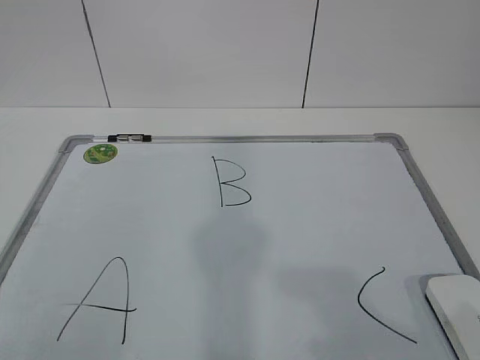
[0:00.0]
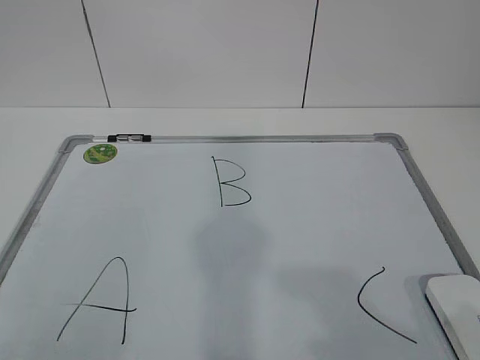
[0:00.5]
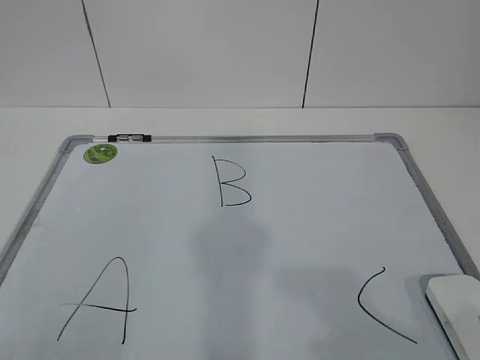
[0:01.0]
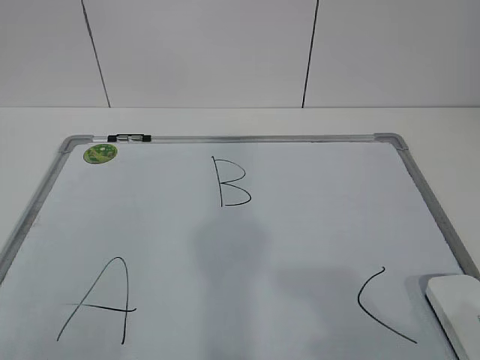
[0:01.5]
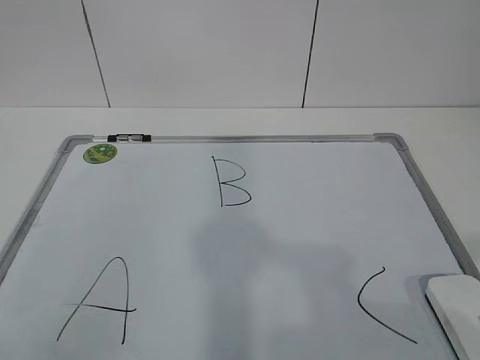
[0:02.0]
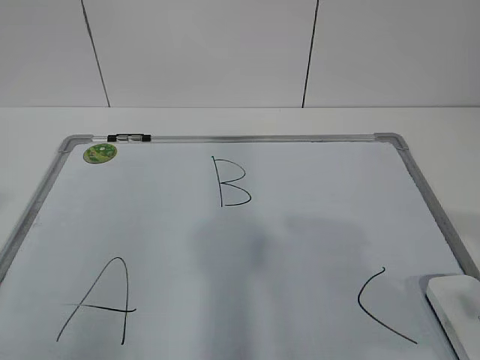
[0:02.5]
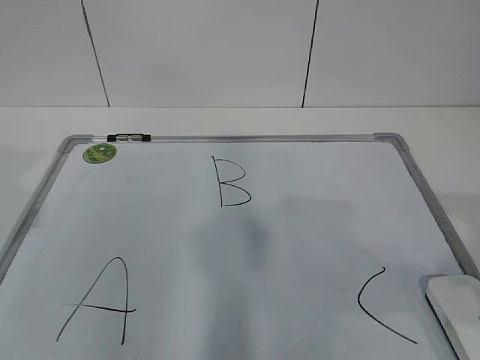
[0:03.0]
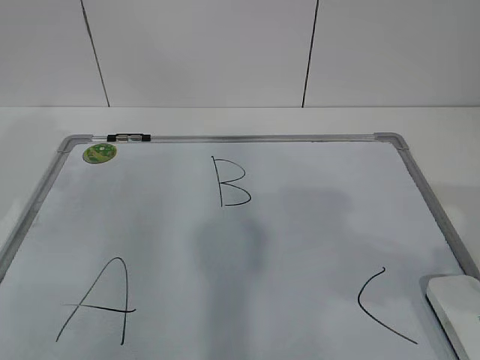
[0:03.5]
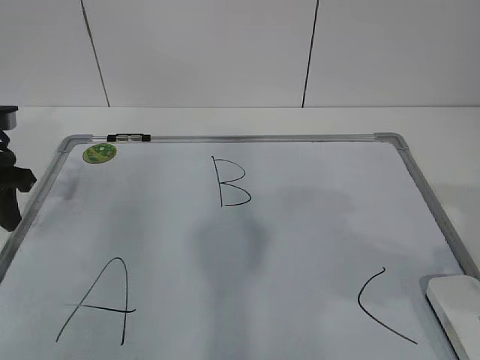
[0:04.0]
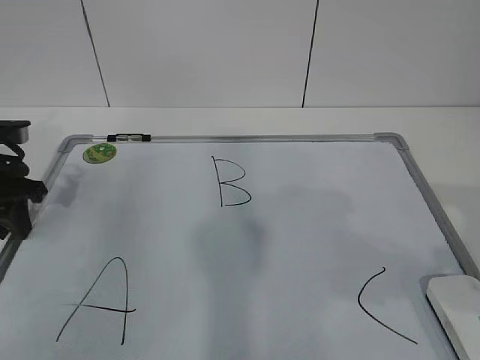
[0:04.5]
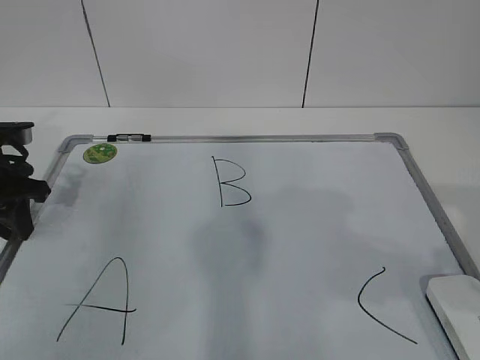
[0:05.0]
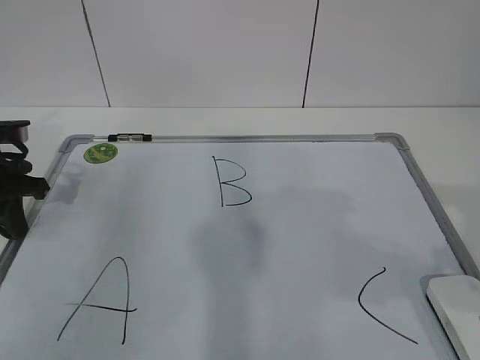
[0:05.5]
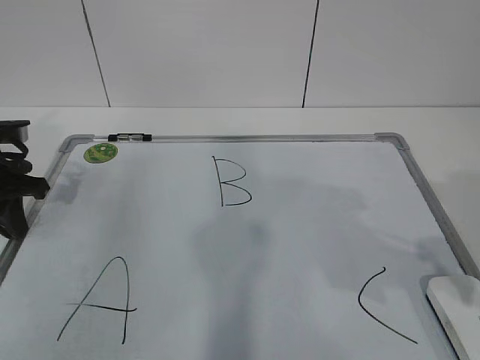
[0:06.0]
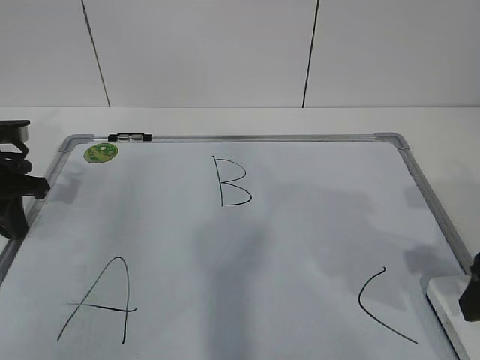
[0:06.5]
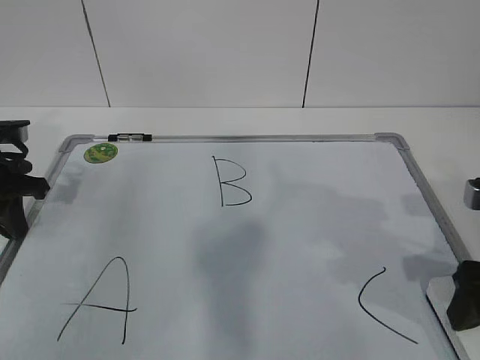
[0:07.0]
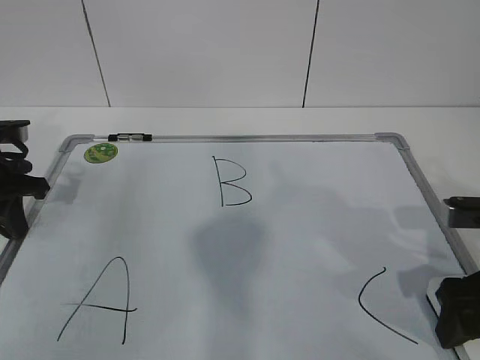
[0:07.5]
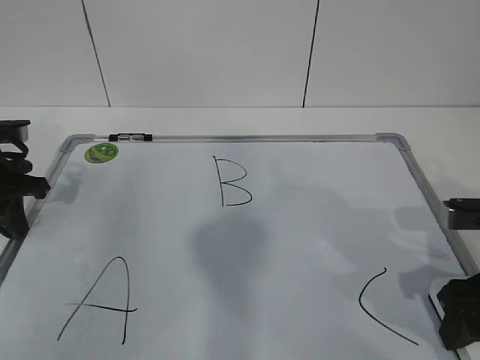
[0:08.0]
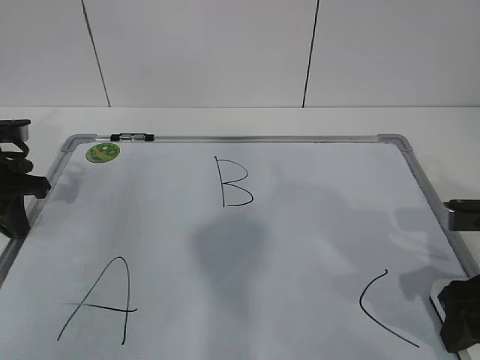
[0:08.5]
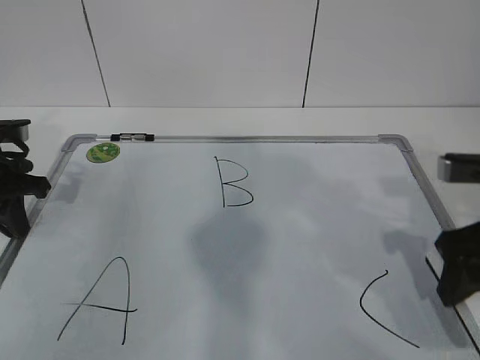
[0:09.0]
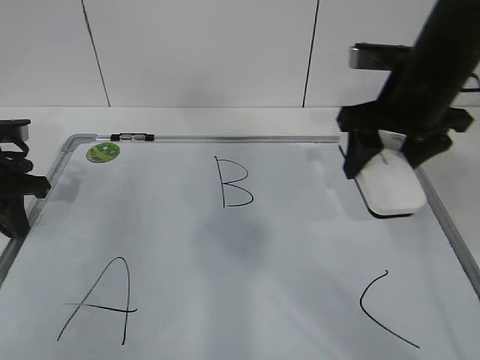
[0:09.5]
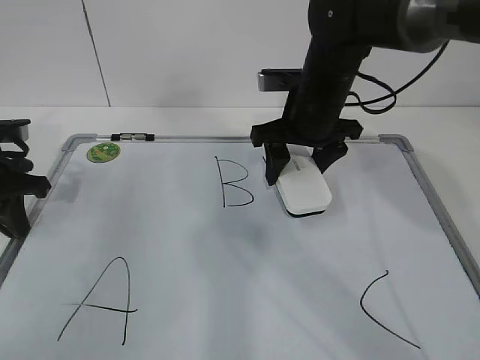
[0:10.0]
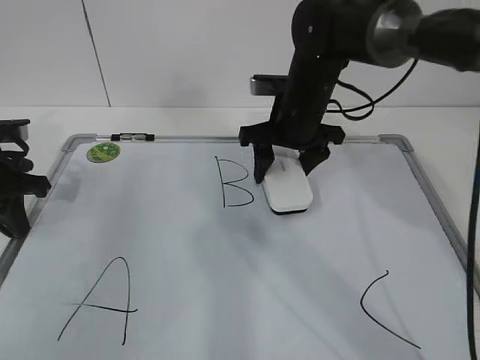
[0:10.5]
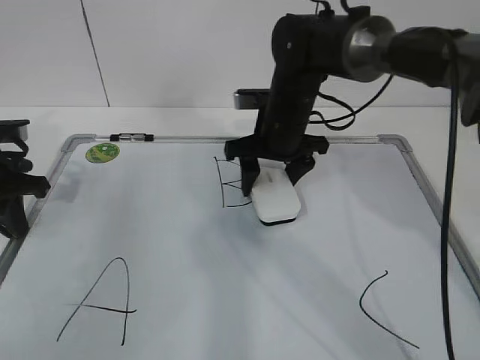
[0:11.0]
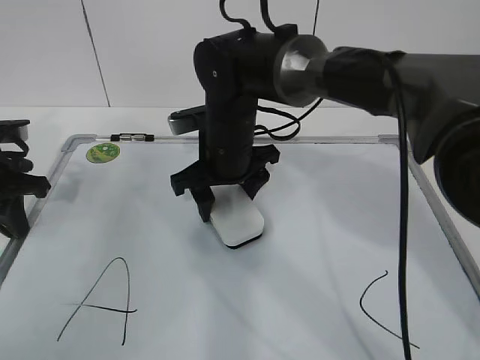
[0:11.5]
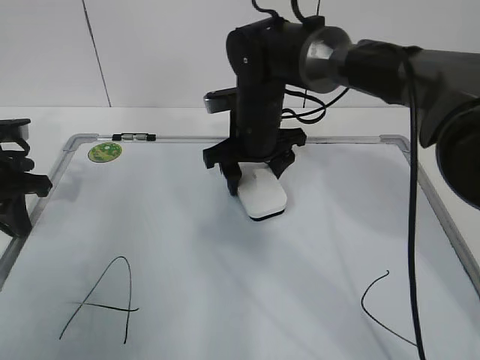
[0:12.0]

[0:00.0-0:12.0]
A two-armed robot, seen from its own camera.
Task of the whole recording: pick up the eraser on the blackboard and erase the letter "B".
Step, 0:00.0 to 0:04.0: Hold the drawing board steady with your left hand.
Step, 0:04.5 to 0:07.0: Grab the eraser with your right hand.
0:02.0 to 0:04.0: The left gripper shifts roughly 30 cm forward.
0:04.0 to 0:06.0: The left gripper closes up.
0:06.0 to 0:08.0: The right gripper moves downward and forward, some 10 cm, and closes its fingers.
0:08.0 to 0:10.0: The right gripper goes roughly 25 cm forward and to the left.
0:10.0 to 0:12.0: The right gripper travels to the left by approximately 5 cm.

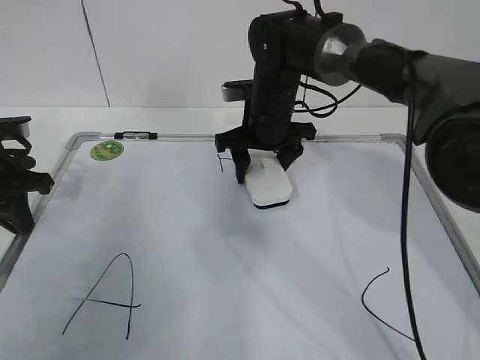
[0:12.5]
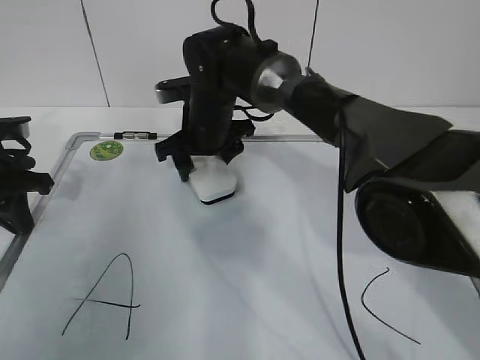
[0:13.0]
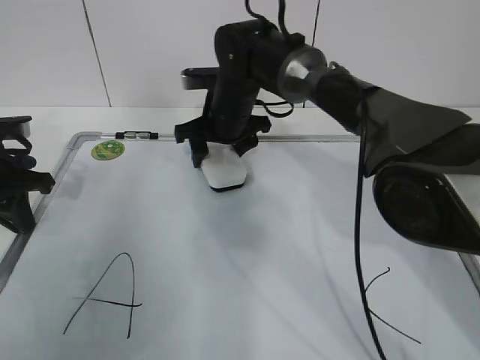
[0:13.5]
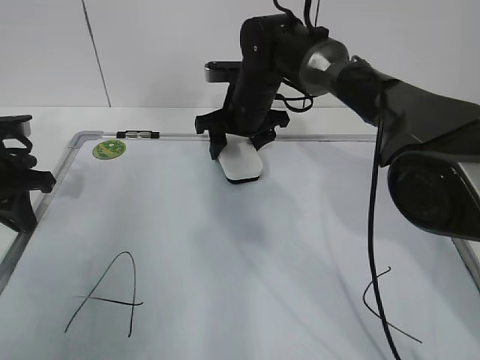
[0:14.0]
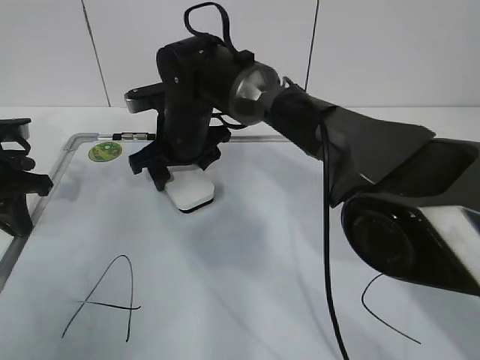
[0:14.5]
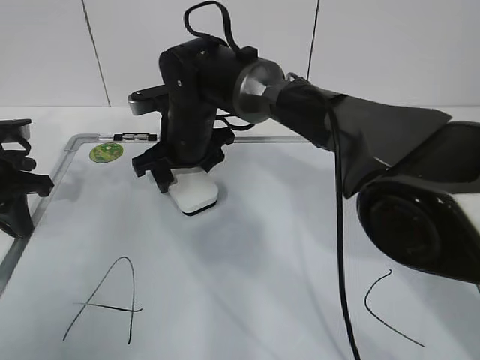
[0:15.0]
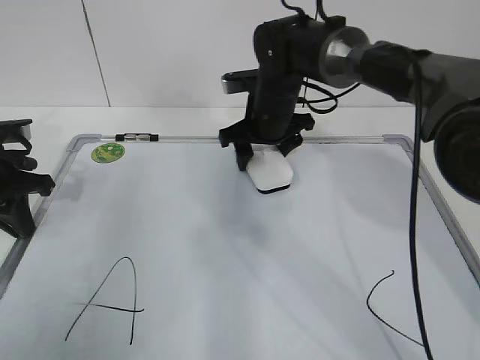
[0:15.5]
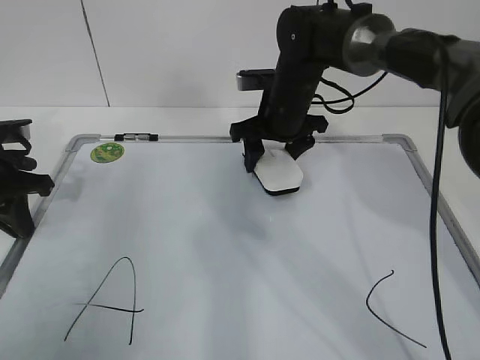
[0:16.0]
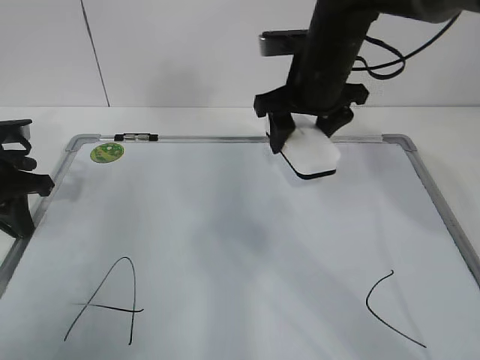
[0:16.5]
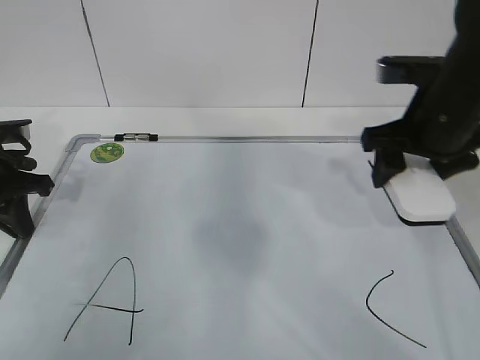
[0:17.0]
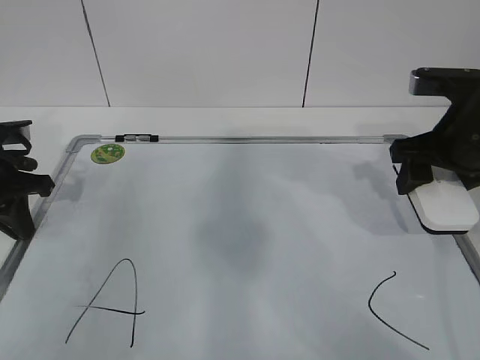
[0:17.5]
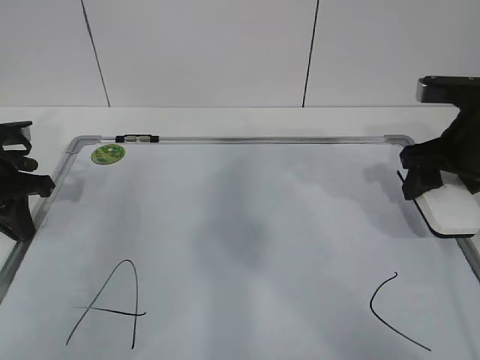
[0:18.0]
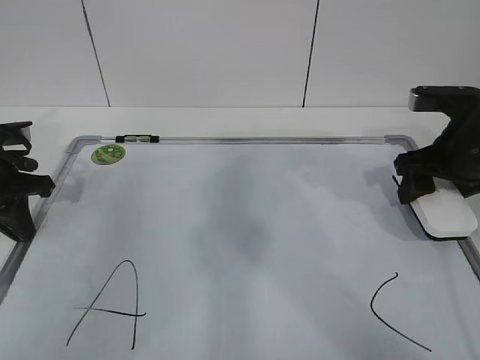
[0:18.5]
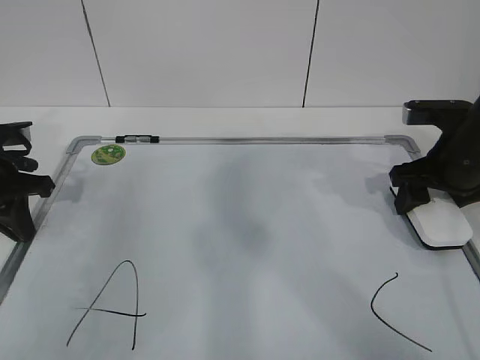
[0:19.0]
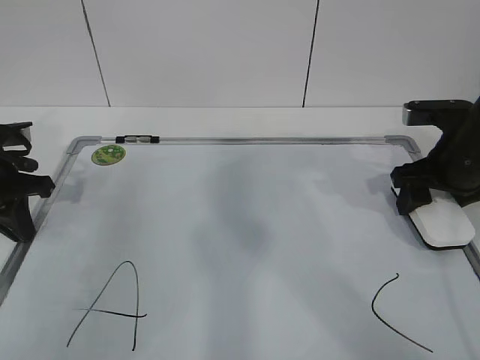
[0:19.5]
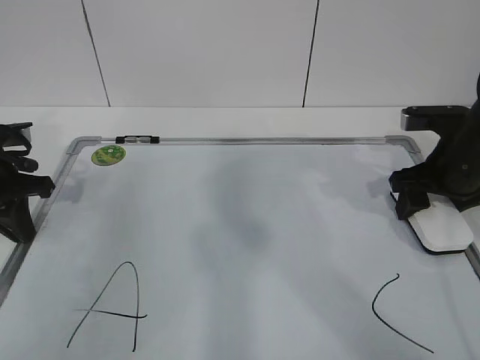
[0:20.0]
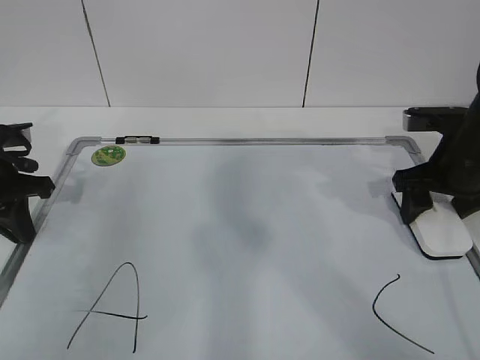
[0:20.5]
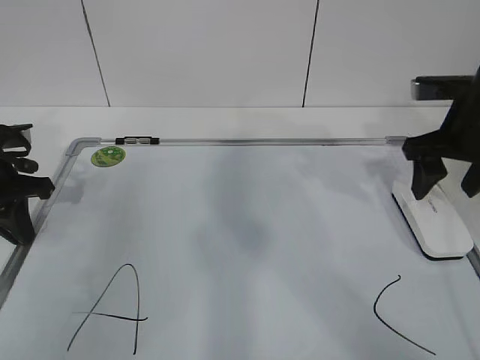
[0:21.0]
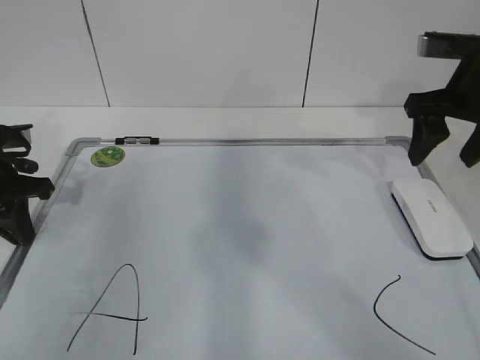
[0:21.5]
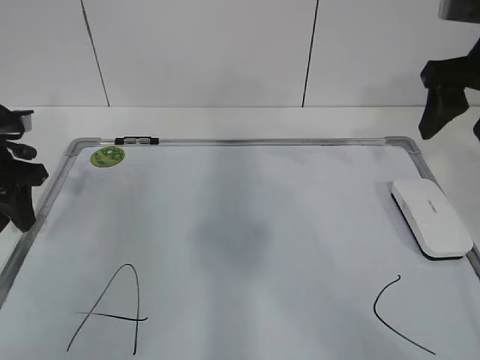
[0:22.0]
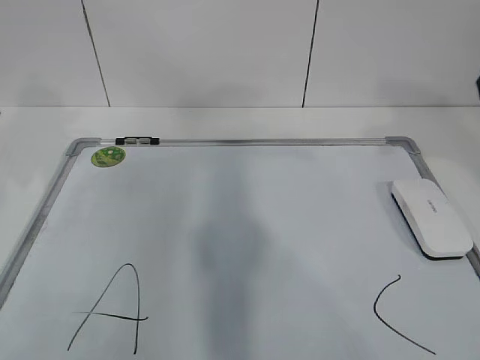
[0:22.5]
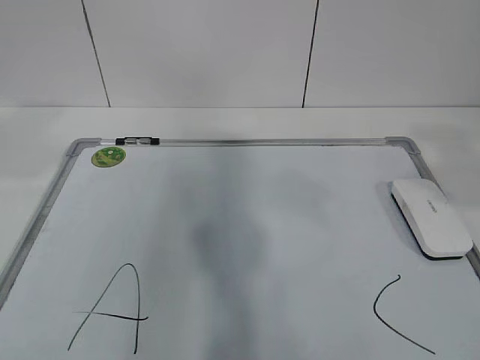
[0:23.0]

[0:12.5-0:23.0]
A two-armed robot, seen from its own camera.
Task of the whole recording: pick up the eraser on the blackboard and erase the letter "B".
Step, 0:13.5 to 0:16.5: Put down the eraser with your right hand.
0:12.5 to 0:14.5: The right gripper moves left and right over roughly 10 cm, changing direction 2 times.
0:14.5 to 0:16.5: The right gripper is displaced to the right and upward by about 20 cm.
0:16.5 to 0:19.0: The right gripper moves to the right, downward and backward, approximately 20 cm.
0:19.0 to 0:21.0: The right gripper opens.
0:21.0 to 0:23.0: The left gripper shifts about 30 cm upward and backward, and opens up. Meanwhile the right gripper goes about 30 cm backward and upward.

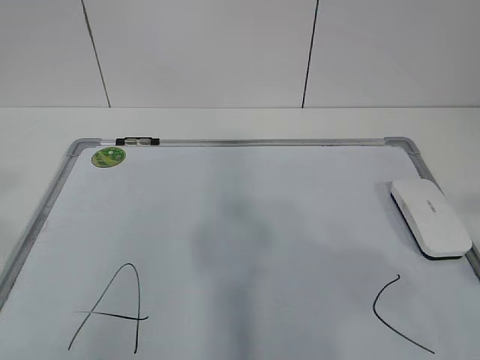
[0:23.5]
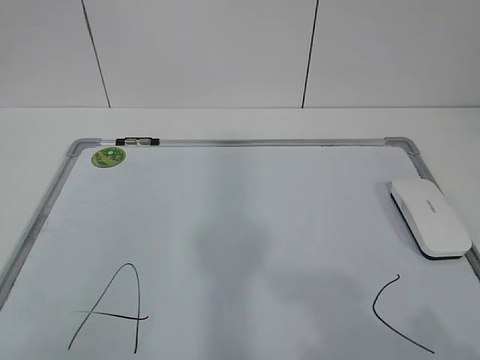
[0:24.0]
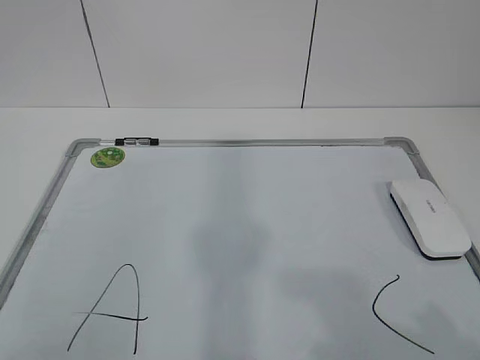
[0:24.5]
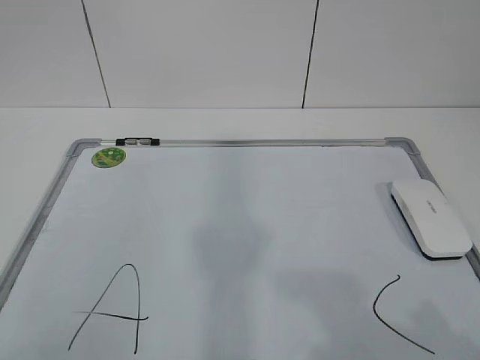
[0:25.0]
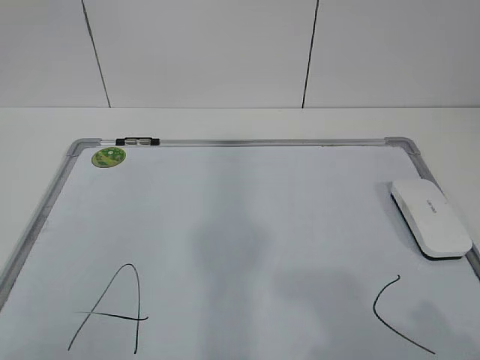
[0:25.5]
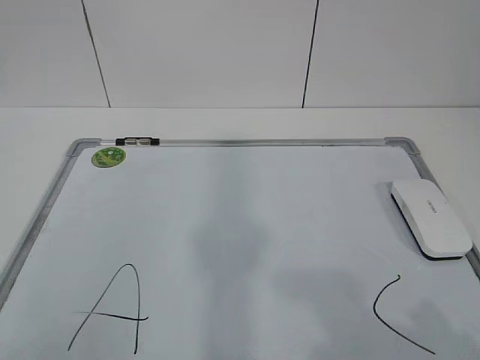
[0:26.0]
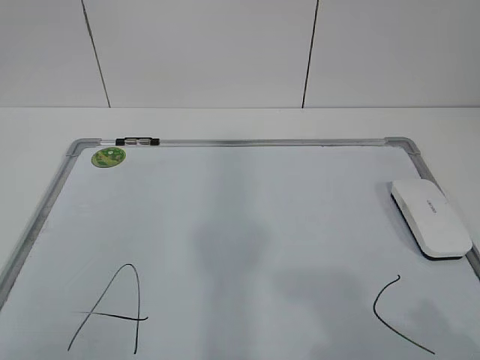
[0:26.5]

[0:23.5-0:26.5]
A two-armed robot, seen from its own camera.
Task of the whole recording: pick up the eraser on the blackboard and erase the letter "B".
0:23.5 to 0:25.0: The right gripper heads downward, covering roughly 10 cm; the left gripper is displaced downward and backward by roughly 10 cm.
0:25.0 to 0:26.5: Both grippers stay about where they are.
